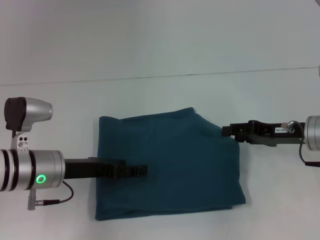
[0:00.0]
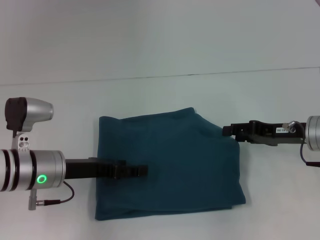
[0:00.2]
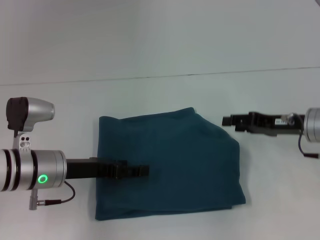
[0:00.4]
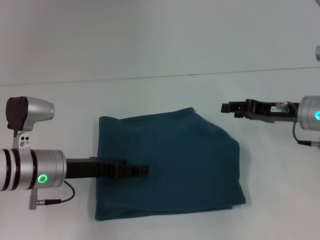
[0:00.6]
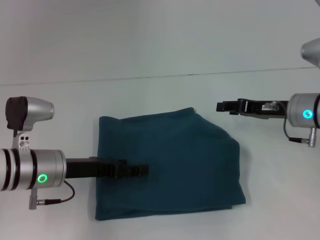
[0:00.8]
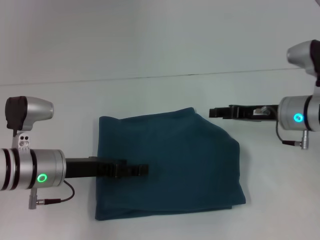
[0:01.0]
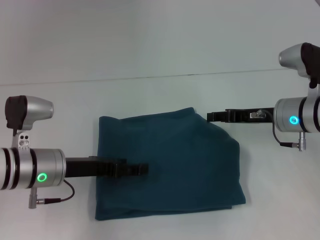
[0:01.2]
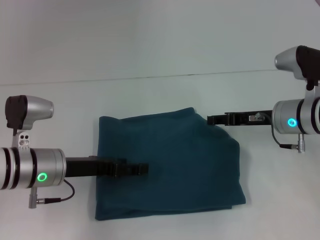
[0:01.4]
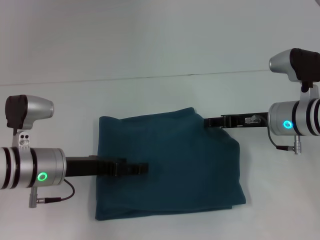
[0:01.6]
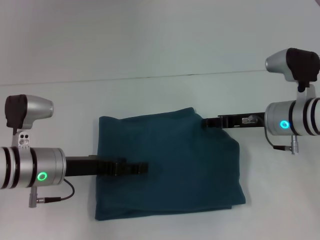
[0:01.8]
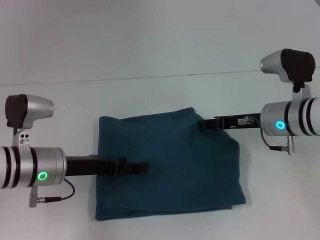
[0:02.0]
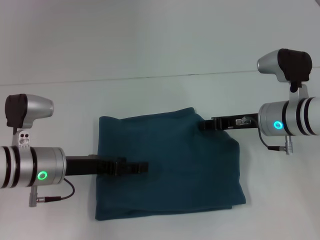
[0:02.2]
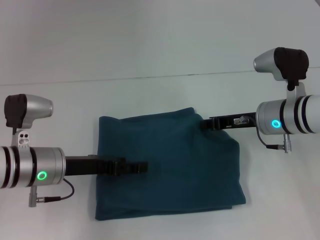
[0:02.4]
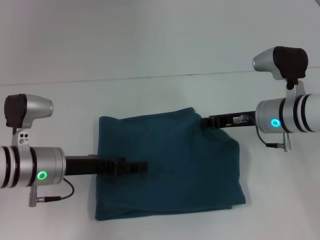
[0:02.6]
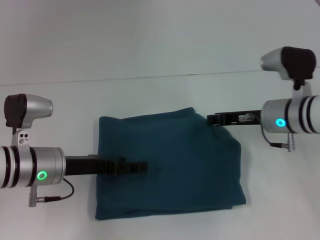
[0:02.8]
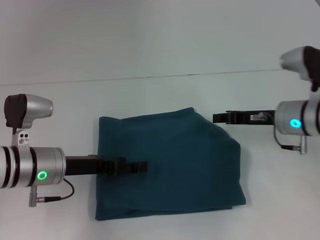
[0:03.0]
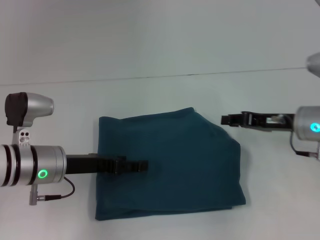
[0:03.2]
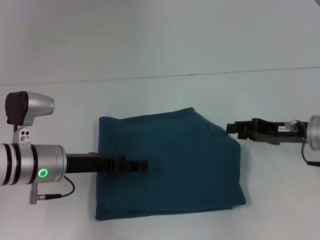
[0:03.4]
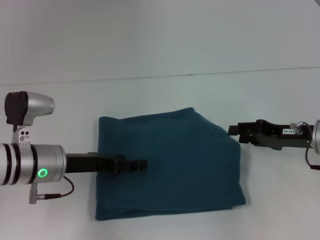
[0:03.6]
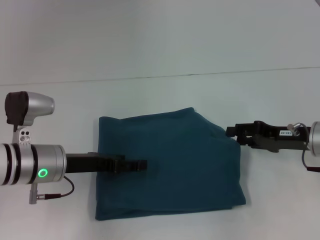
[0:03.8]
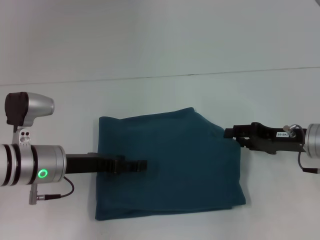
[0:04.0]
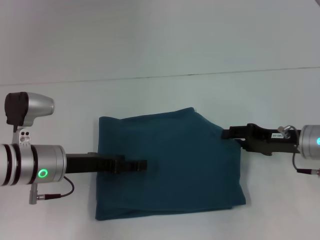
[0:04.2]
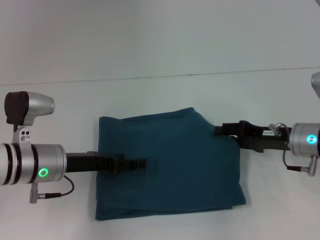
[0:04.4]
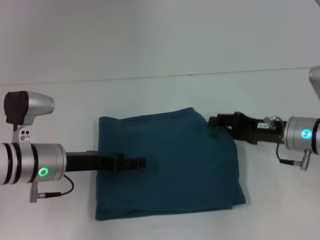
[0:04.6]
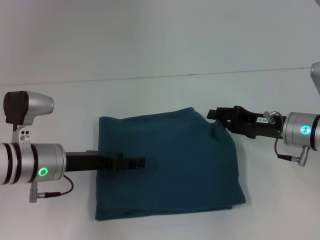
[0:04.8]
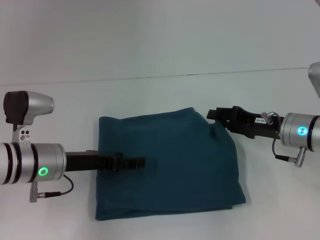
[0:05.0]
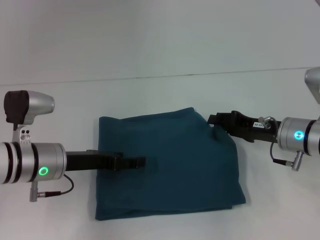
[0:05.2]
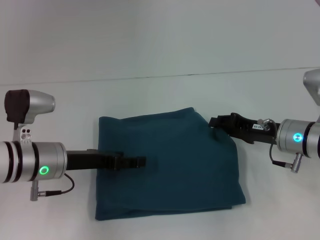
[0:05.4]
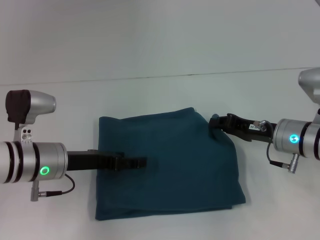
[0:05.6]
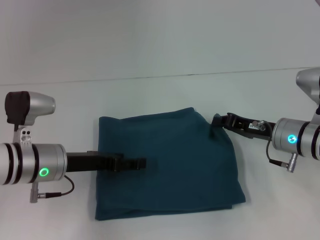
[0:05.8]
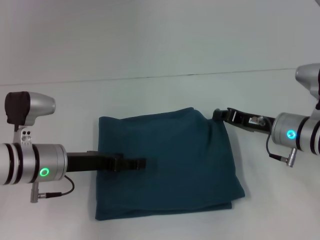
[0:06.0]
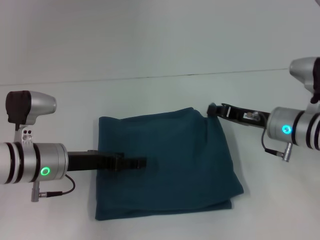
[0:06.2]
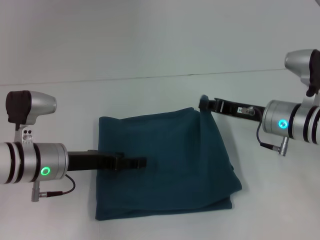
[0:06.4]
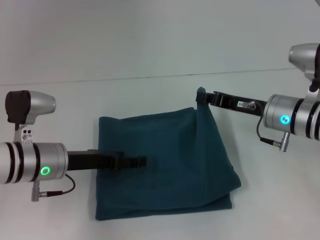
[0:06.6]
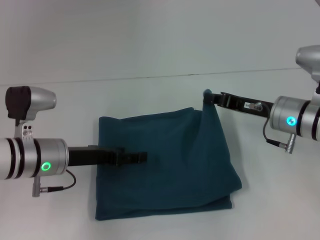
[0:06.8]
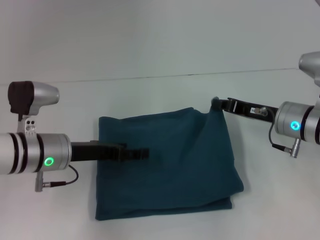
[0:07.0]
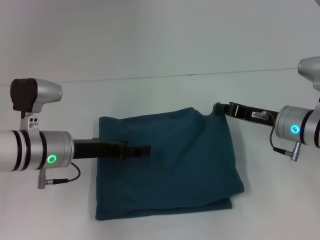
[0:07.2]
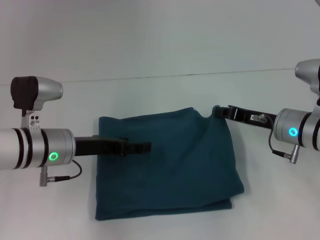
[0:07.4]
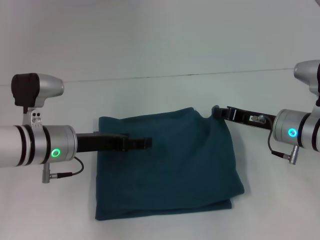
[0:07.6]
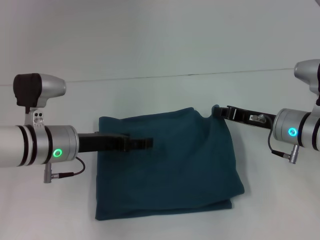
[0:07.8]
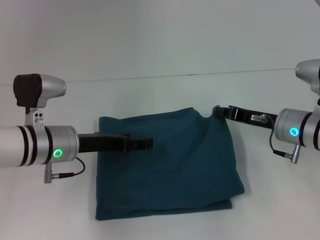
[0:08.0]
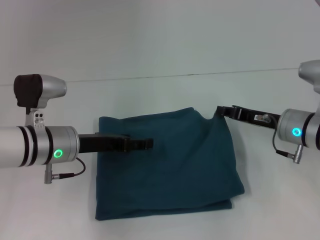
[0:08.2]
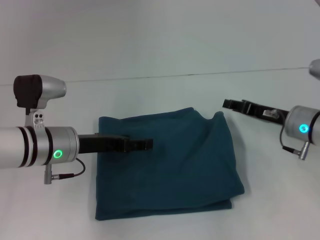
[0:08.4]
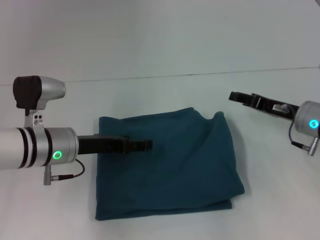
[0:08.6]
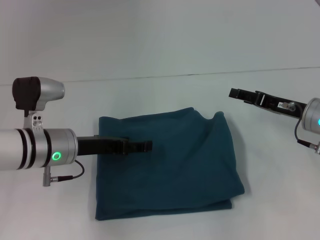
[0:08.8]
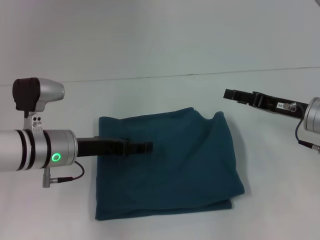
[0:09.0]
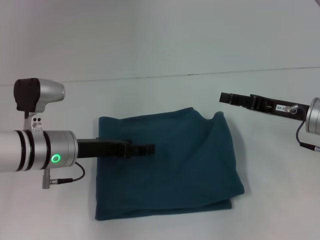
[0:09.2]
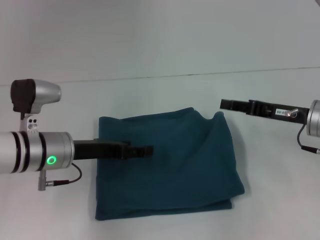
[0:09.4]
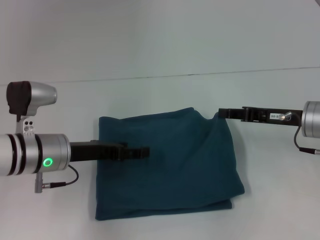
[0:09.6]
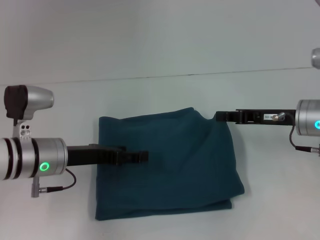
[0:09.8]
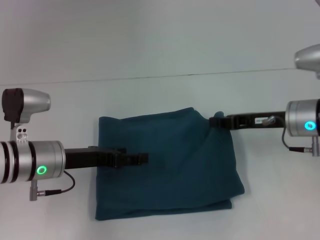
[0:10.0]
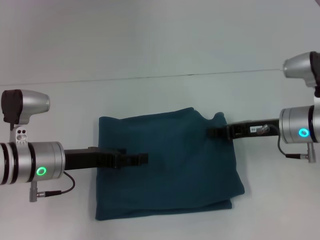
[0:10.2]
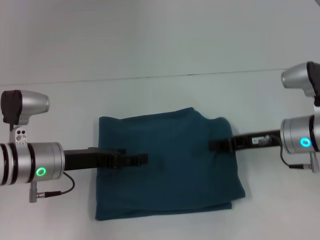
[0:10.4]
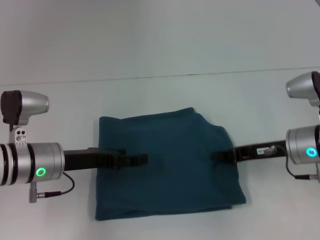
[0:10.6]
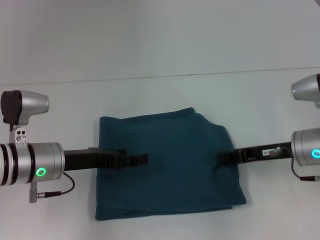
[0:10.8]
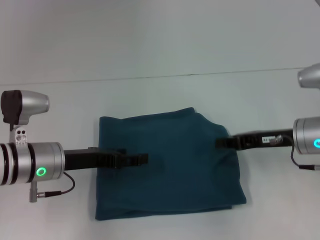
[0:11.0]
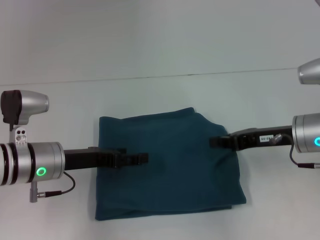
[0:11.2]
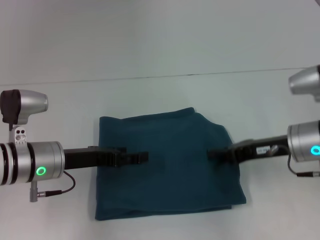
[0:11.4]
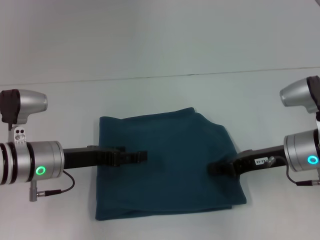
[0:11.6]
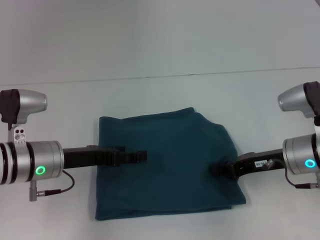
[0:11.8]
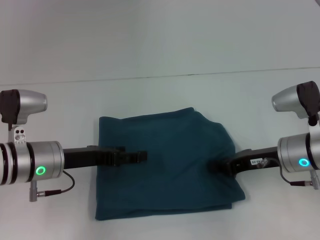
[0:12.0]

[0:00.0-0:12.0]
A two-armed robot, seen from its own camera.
0:00.0 to 0:01.6: The right gripper moves about 5 cm.
0:01.6 to 0:03.0: The right gripper closes its fingers.
0:03.0 to 0:04.4: The right gripper opens.
0:04.4 to 0:06.0: The right gripper closes up.
0:06.0 to 0:07.6: The grippers move only a little.
0:07.6 to 0:09.0: The right gripper opens up.
0:09.0 to 0:10.4: The right gripper closes its fingers.
0:10.4 to 0:12.0: There are only small adjustments of the grippers.

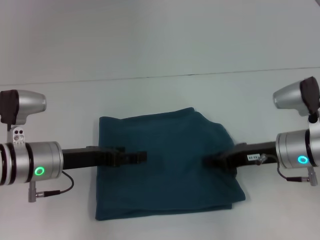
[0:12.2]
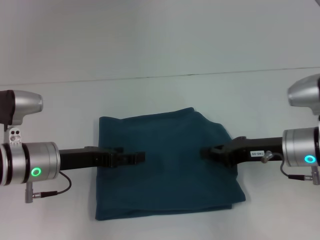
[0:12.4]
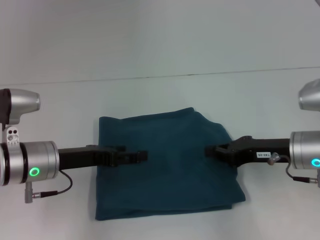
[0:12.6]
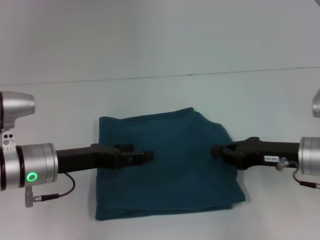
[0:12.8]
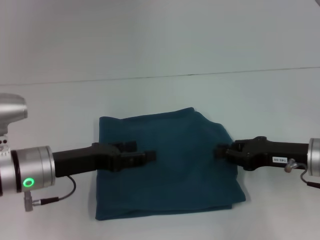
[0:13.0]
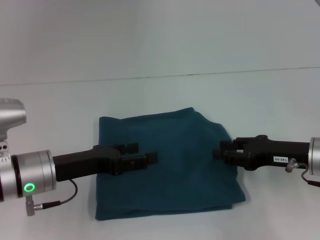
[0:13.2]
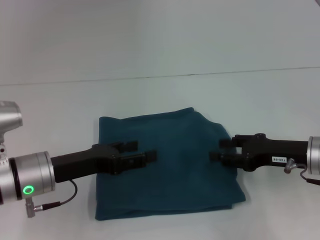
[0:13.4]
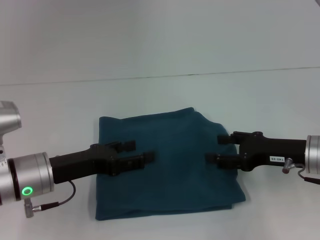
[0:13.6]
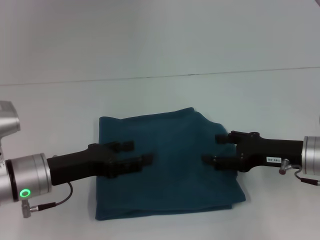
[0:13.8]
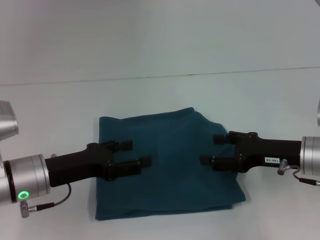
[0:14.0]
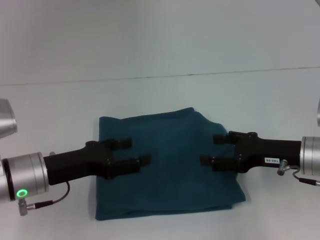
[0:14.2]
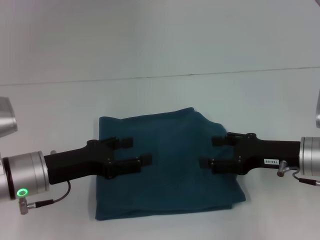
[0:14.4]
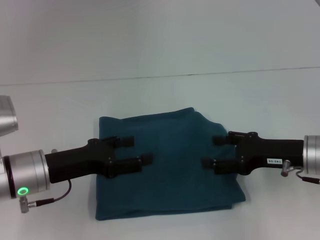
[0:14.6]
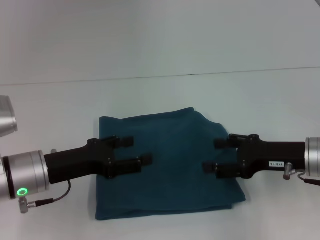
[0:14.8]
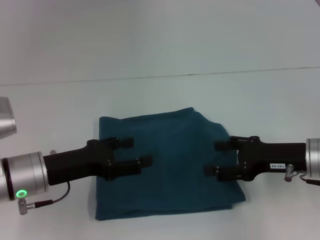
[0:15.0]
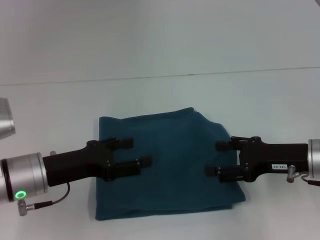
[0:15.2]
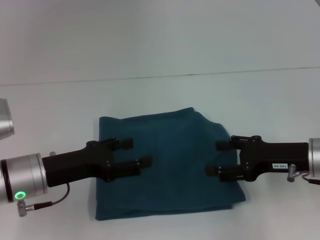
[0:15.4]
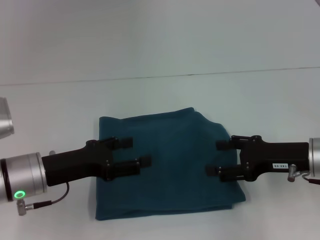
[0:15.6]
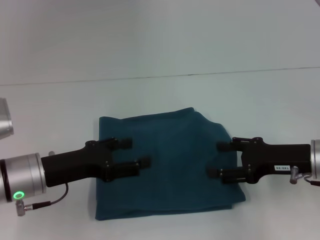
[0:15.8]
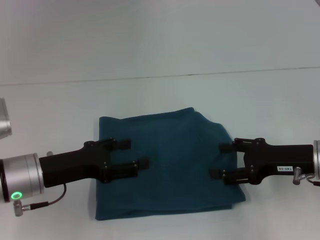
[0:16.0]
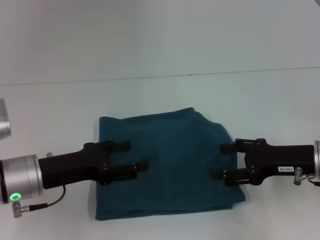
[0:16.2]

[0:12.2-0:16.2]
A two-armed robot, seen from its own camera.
0:12.2 to 0:13.6: The right gripper opens up.
0:13.6 to 0:14.8: The grippers stay close to where they were, moving slightly.
0:14.8 to 0:16.2: The two grippers keep their place.

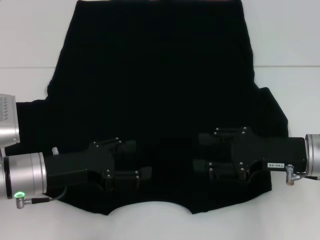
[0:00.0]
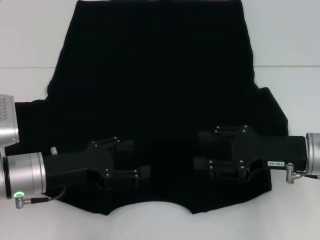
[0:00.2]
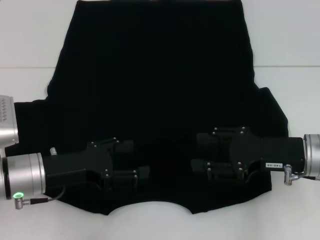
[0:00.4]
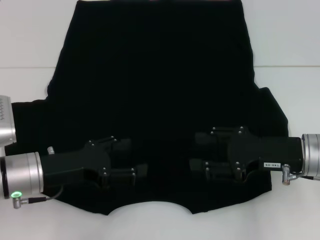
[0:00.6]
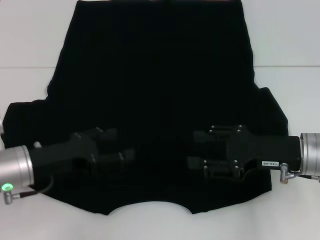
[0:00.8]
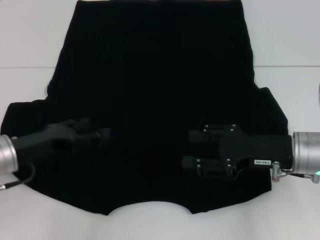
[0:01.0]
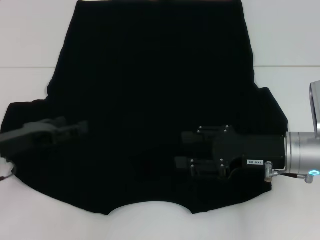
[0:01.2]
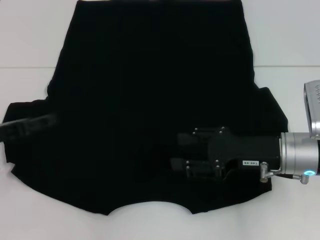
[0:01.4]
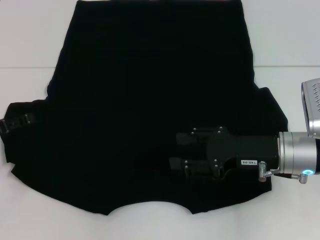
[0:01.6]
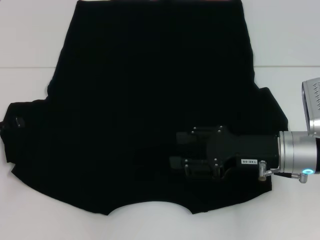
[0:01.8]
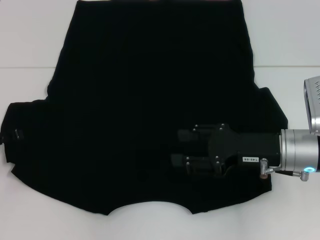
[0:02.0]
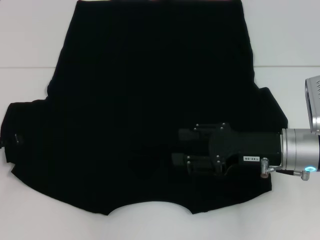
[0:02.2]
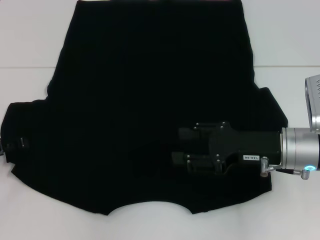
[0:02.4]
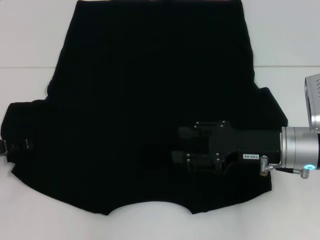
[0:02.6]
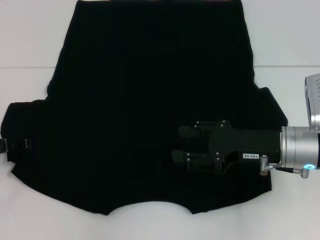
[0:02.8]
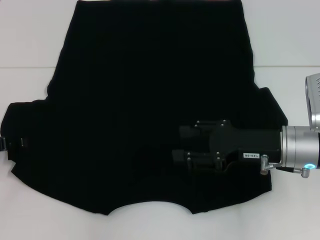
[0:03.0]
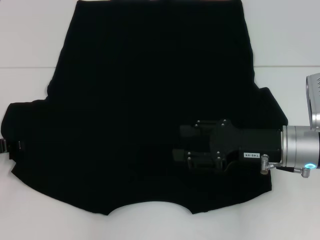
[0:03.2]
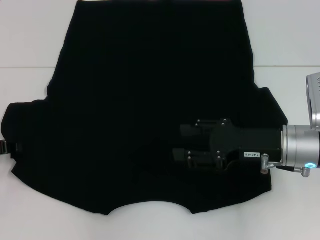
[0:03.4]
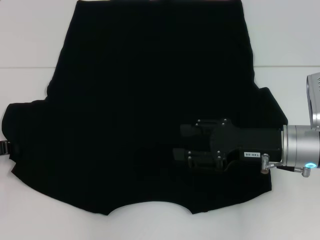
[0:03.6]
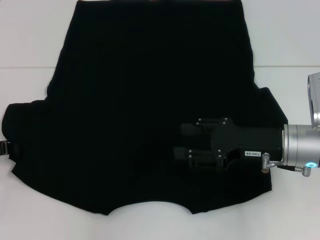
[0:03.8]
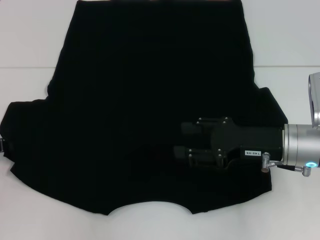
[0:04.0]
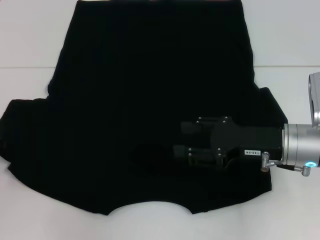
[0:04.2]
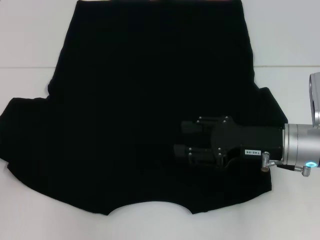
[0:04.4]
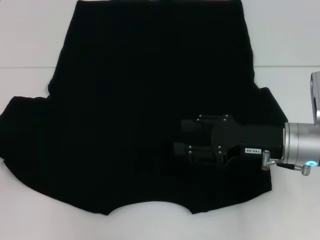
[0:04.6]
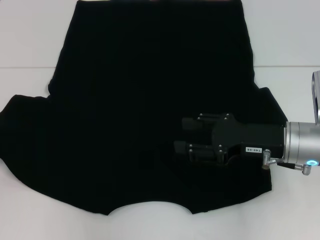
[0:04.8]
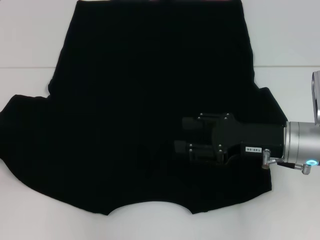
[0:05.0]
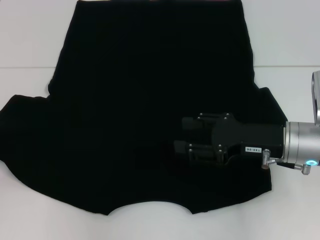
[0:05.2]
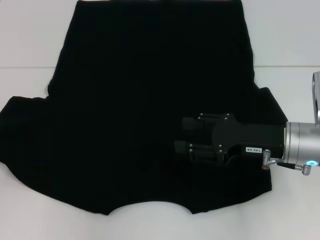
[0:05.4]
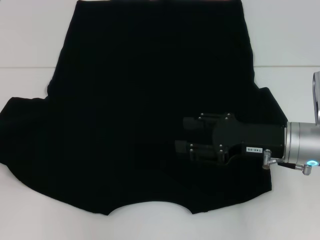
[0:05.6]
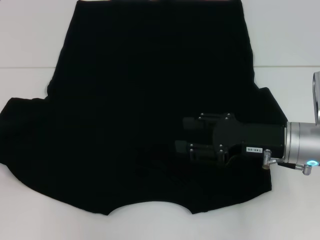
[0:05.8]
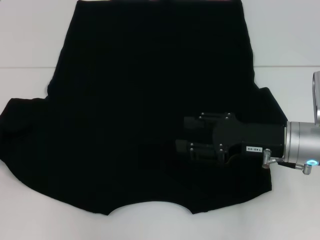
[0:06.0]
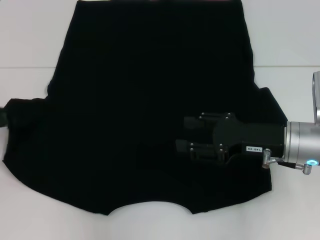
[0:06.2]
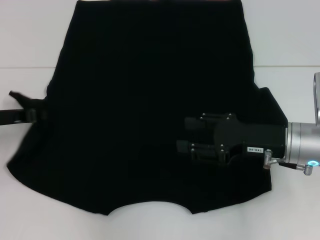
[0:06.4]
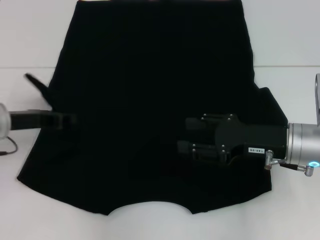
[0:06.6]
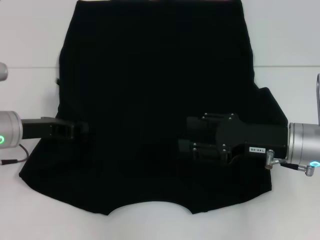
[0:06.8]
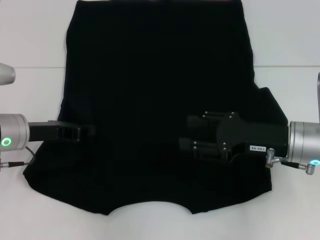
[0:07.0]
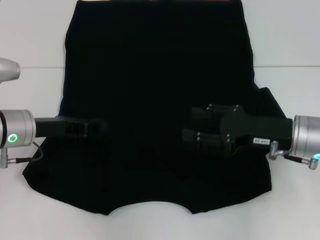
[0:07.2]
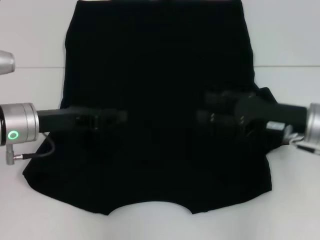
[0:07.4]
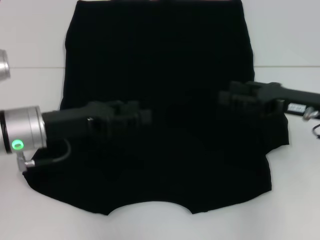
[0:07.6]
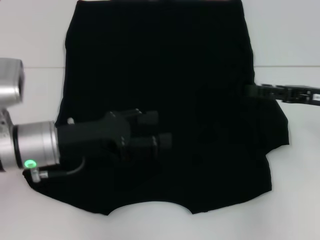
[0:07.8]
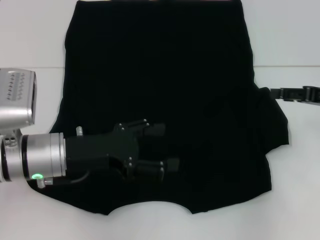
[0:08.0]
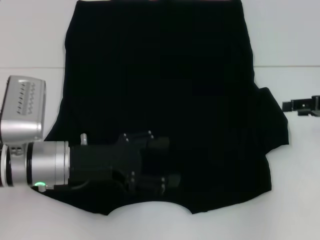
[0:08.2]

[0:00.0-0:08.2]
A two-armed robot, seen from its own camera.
Step, 0:00.0 to 0:07.4: Fold the bottom left sleeve with your left hand.
0:00.0 to 0:01.6: The left gripper heads to the left, covering some 15 cm.
0:03.2 to 0:05.0: The left gripper closes its fingers.
0:05.0 to 0:06.6: The left gripper shifts roughly 10 cm to the right.
0:06.6 to 0:08.2: The left gripper moves to the right and backward, about 10 cm, and opens. The right gripper heads to the right, covering approximately 15 cm.
